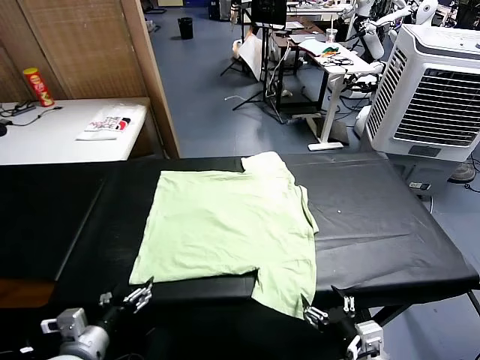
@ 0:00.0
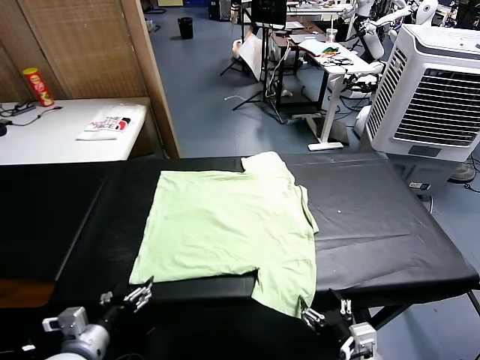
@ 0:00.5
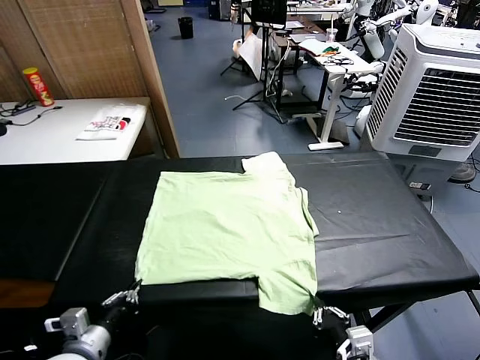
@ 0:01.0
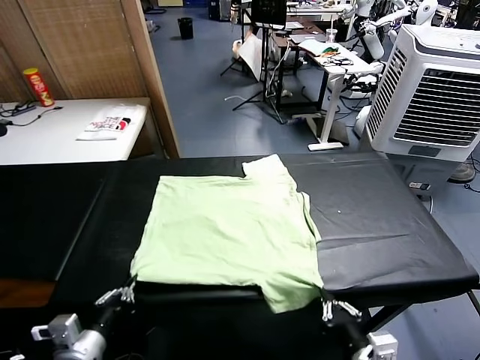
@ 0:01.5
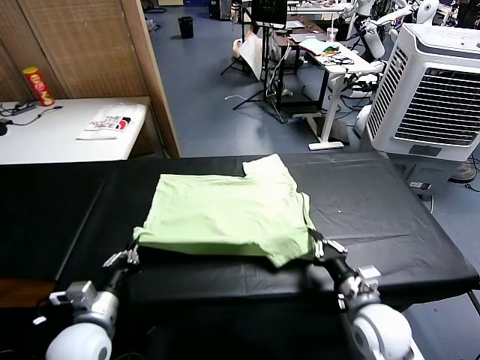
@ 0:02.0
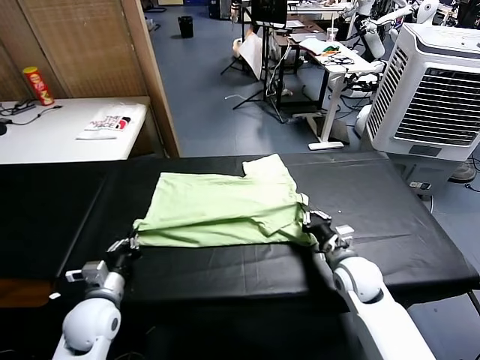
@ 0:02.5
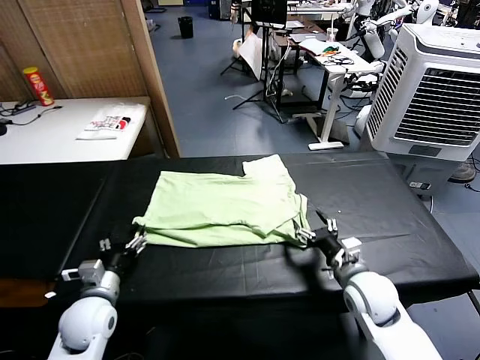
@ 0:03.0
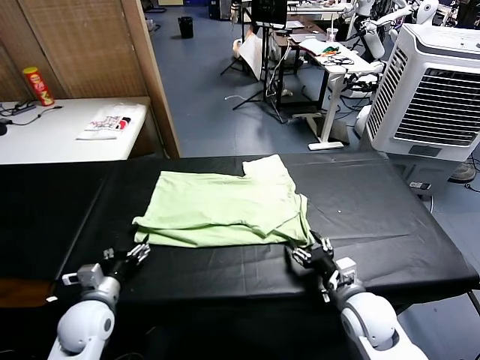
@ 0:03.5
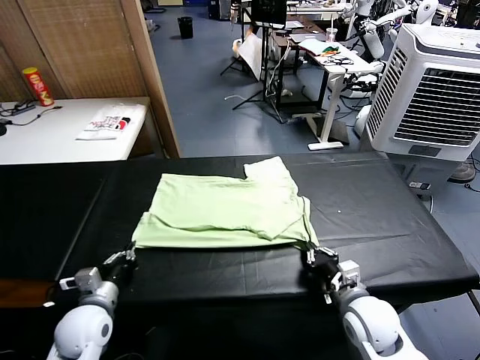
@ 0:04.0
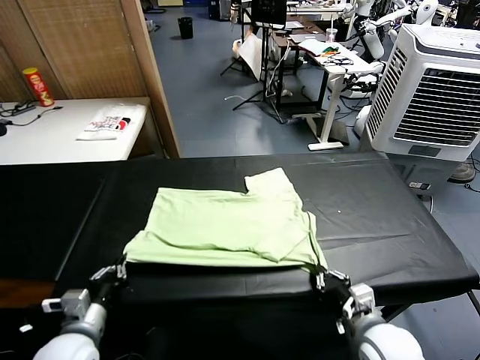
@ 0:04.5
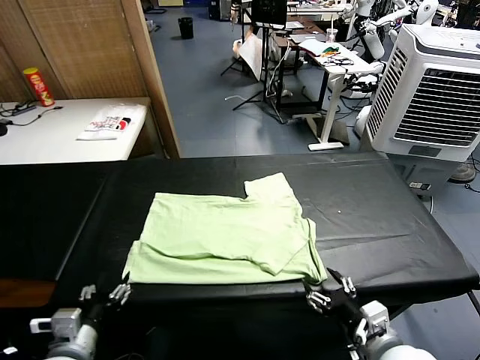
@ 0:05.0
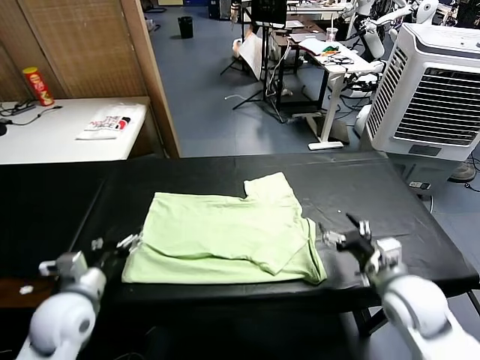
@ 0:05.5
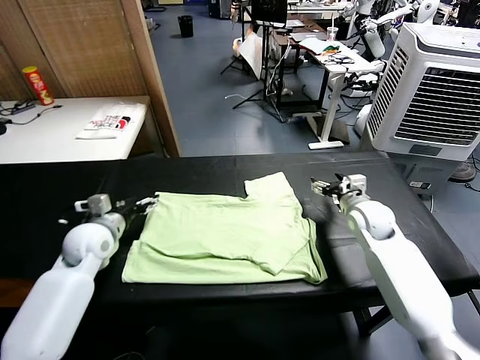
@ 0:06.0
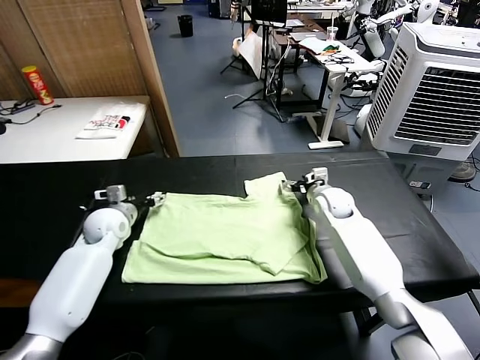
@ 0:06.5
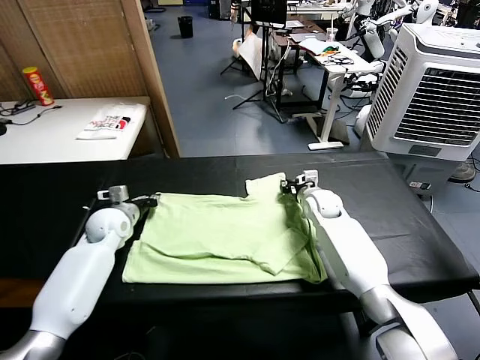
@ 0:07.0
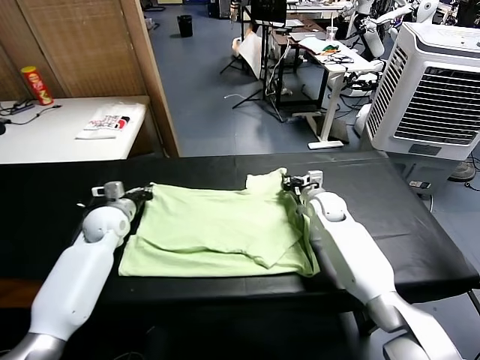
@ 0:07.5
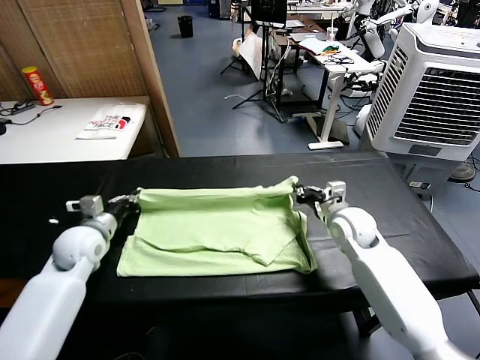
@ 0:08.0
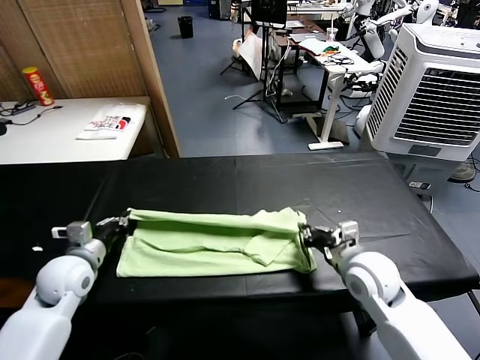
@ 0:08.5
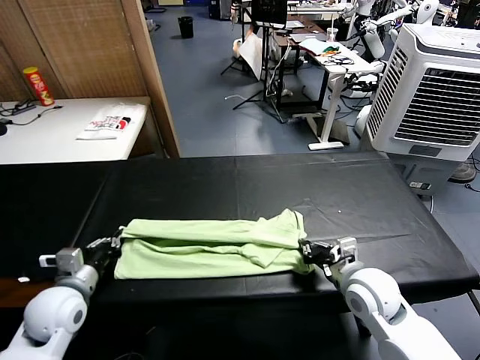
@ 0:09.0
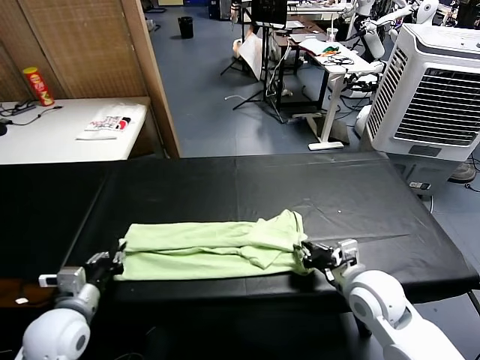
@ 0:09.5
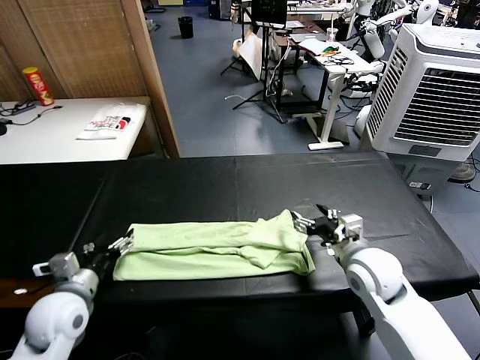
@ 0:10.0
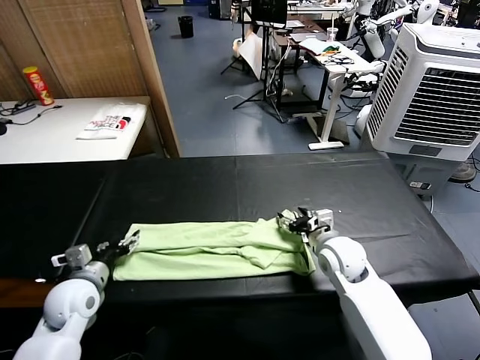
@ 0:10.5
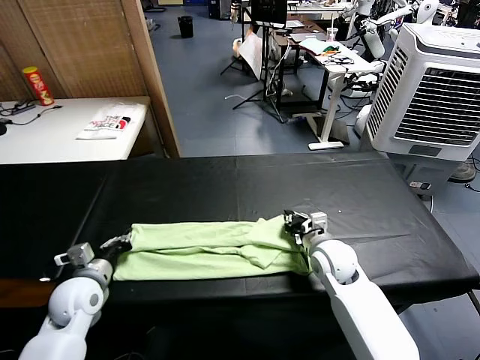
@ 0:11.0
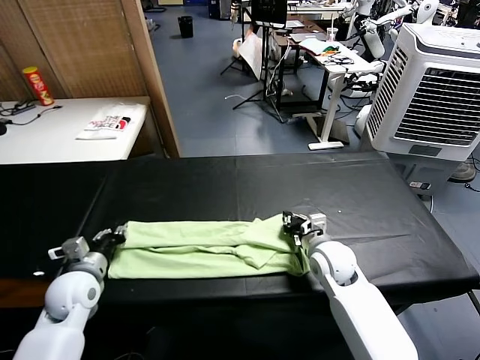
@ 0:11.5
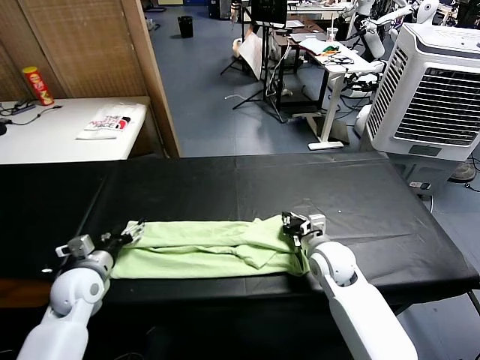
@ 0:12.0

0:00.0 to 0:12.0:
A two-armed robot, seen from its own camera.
Task of the whole recording: fold and organize the clothes.
Step, 0:00.0 to 0:01.0: use both grippers simultaneously to clamp the lower edge of the clothing fabric.
Step, 0:01.5 to 0:03.0: use both grippers to drag the lower edge of the fabric forward and fold it over the upper edge.
Step, 0:03.5 to 0:05.0: Drag the clothes downward with both gripper.
Step, 0:05.5 to 0:06.5: use both grippers simultaneously to clamp the upper edge of the clothing fabric.
Step, 0:07.0 to 0:09.5: use both grippers to drag the upper edge of the fabric backward and fold it over the lower edge.
0:02.0 to 0:04.0: The left gripper opens and closes again. Meanwhile the right gripper heads backward, covering approximately 10 cm, and opens and closes again.
0:04.0 to 0:06.0: The two grippers go roughly 25 cm forward. The left gripper opens its fingers. The right gripper opens its fingers.
0:06.0 to 0:08.0: The left gripper heads backward, covering about 5 cm, and closes its fingers; the right gripper moves backward, about 15 cm, and closes up.
0:08.0 to 0:10.0: The right gripper goes backward and returns, about 10 cm each way, and opens; the left gripper moves backward, about 10 cm, and opens its fingers.
0:10.0 to 0:12.0: The left gripper shifts roughly 5 cm forward, and closes and opens again; the right gripper travels downward by roughly 5 cm, and closes.

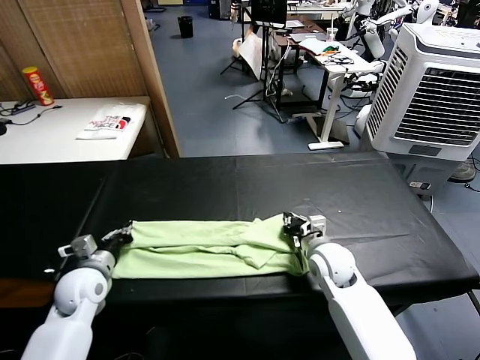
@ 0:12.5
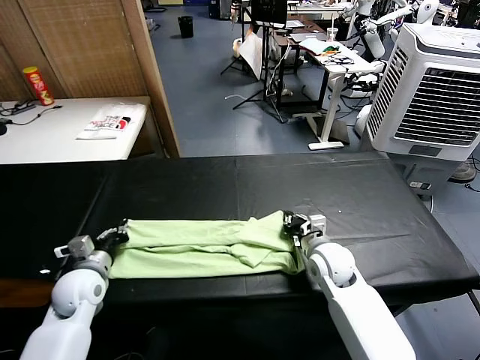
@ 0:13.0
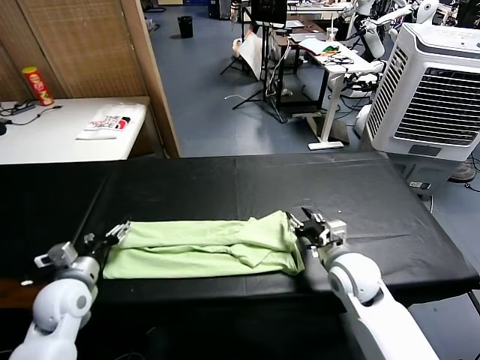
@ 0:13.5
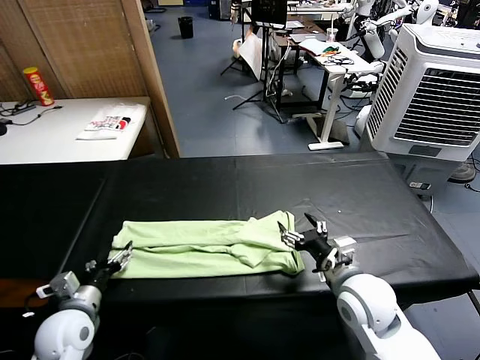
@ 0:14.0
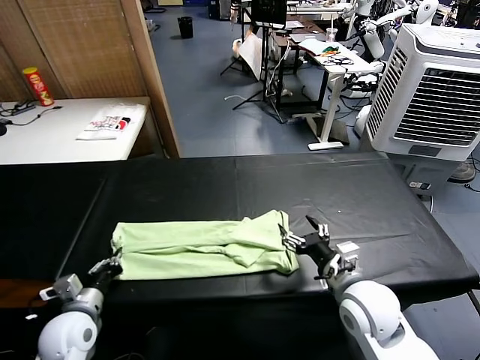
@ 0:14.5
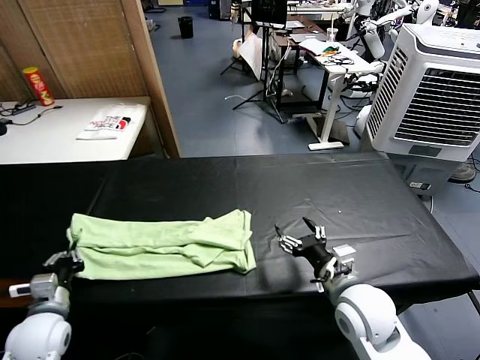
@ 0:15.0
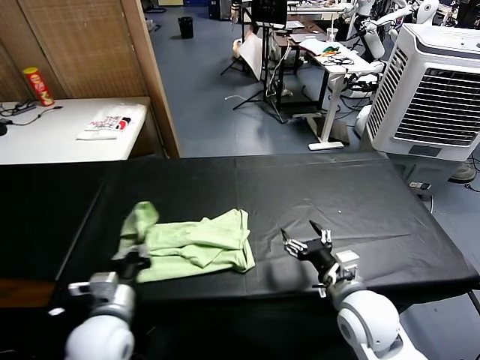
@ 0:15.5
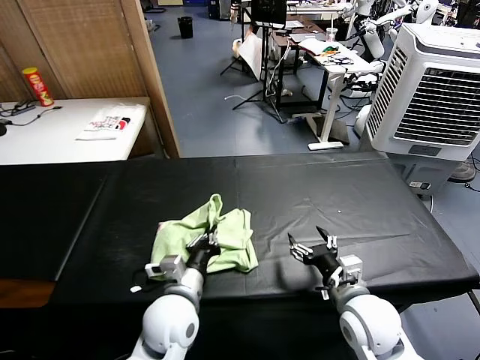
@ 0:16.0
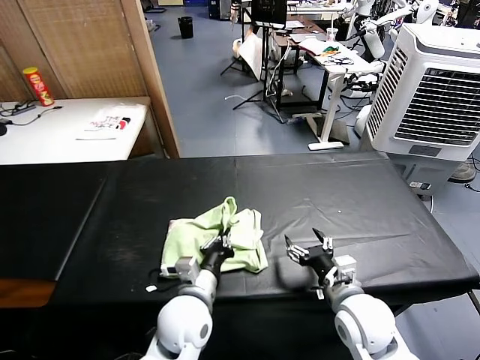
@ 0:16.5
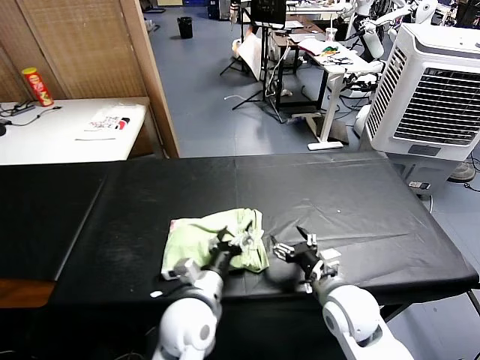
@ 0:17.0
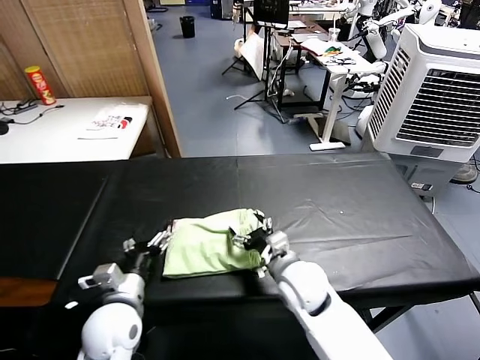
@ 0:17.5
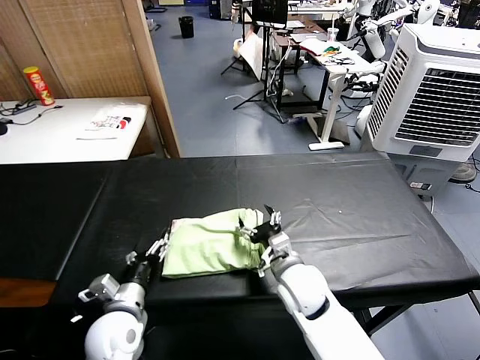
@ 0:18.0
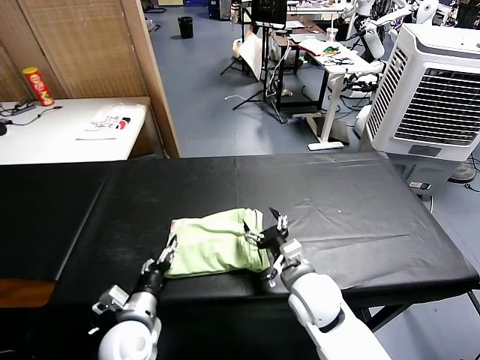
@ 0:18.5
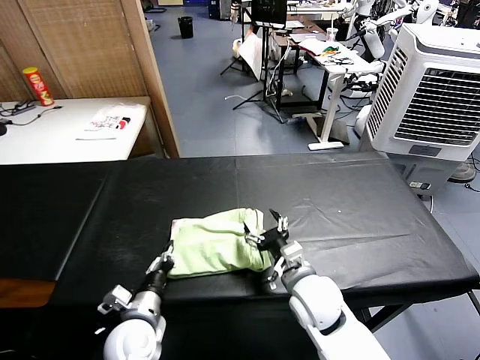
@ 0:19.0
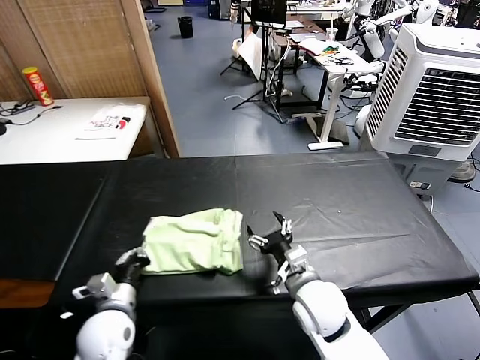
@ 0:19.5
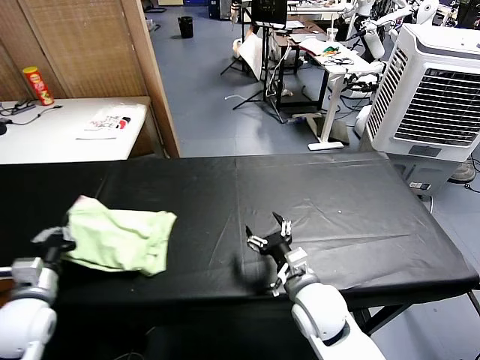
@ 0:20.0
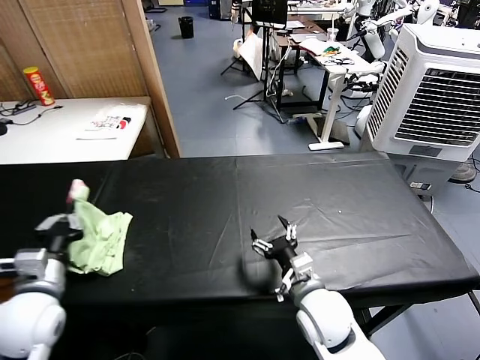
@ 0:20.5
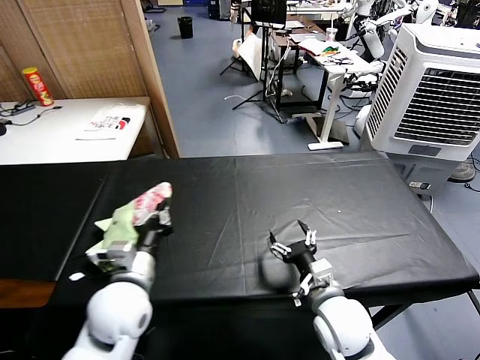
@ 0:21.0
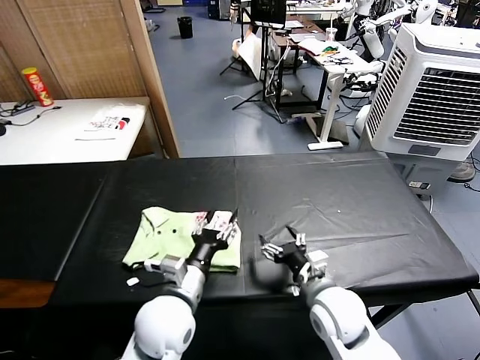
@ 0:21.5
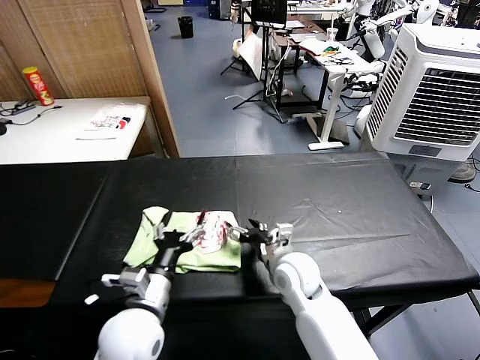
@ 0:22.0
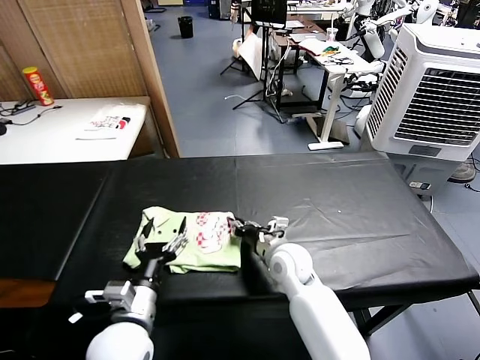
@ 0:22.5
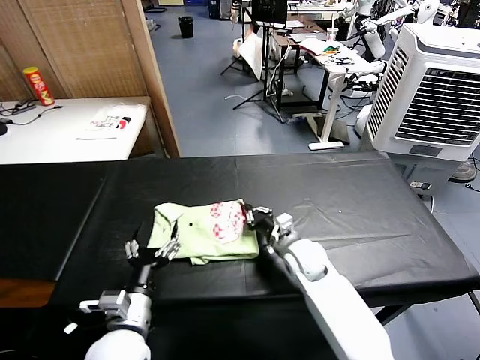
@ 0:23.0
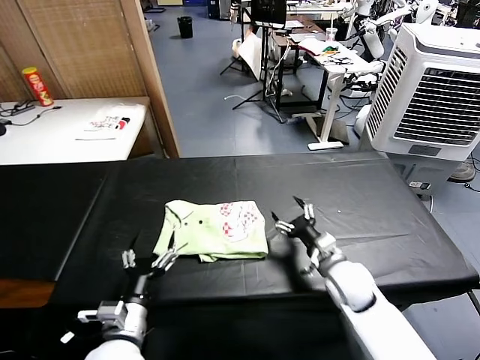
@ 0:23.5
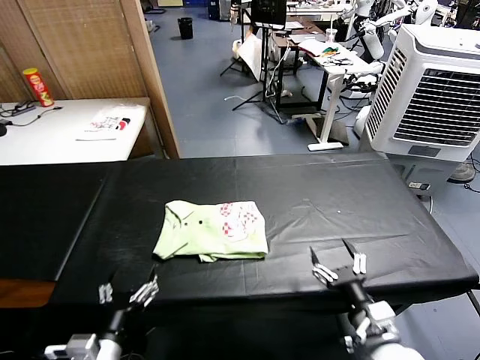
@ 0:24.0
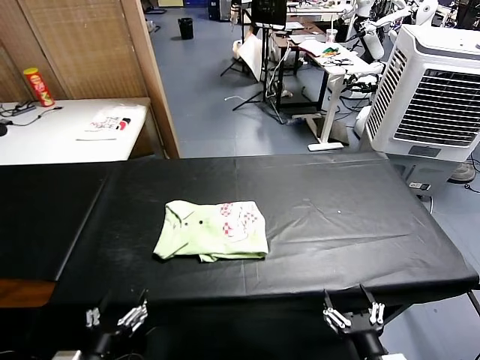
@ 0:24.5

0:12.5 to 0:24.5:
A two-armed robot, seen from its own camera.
Task of the whole recording: fold and organize the clothes.
Step, 0:14.5 to 0:16.5: use the left gripper to drag the left edge of the fabric to the left and folds it over the right edge.
Step, 0:17.5 to 0:21.0: Flip the folded clothes over with left gripper.
Step, 0:21.5 to 0:23.0: Drag the clothes to the center of the table.
0:12.5 to 0:14.5: The left gripper moves backward, roughly 10 cm, and opens, then closes again. Meanwhile the right gripper moves backward and upward, approximately 15 cm, and opens.
0:14.5 to 0:16.5: The left gripper goes about 25 cm to the right.
0:16.5 to 0:18.5: Both grippers move to the left, about 10 cm. The left gripper opens its fingers.
0:18.5 to 0:20.5: The left gripper is displaced upward and to the left by roughly 20 cm, and closes.
0:20.5 to 0:22.5: The right gripper heads forward, covering about 10 cm, and closes up; the left gripper shifts about 15 cm to the right, and opens.
0:22.5 to 0:24.5: The right gripper goes roughly 35 cm backward and to the right, and opens up. The left gripper travels backward and to the left by roughly 15 cm.

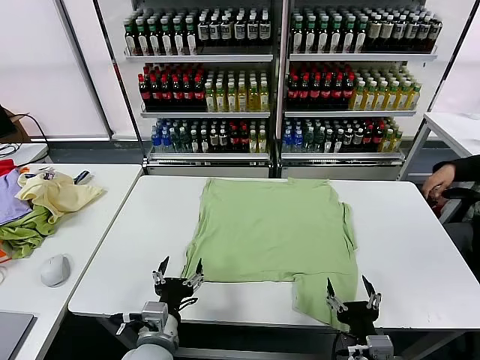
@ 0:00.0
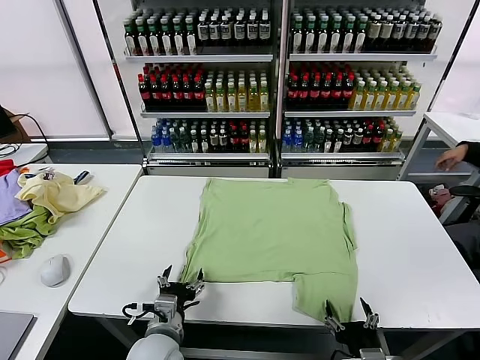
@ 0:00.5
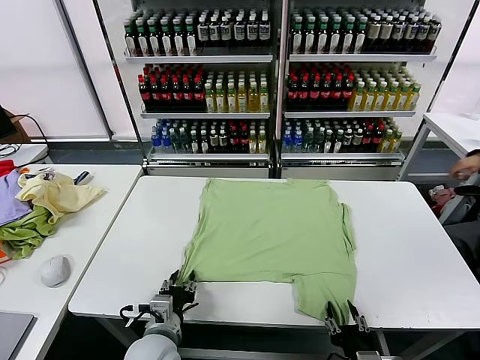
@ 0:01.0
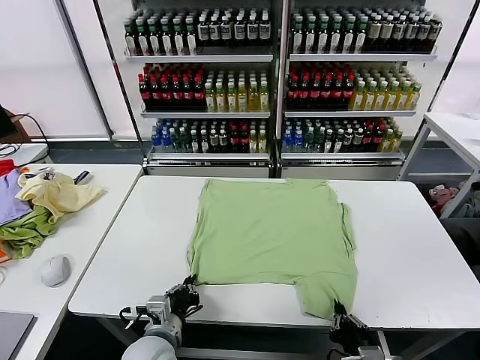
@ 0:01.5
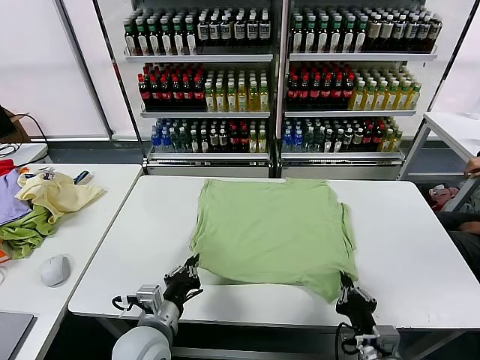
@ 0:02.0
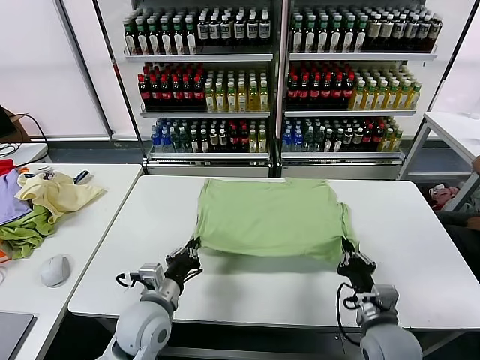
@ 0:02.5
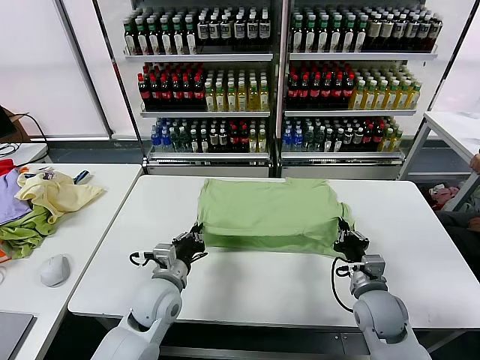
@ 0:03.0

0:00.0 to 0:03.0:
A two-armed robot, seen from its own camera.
Task of the whole recording: fold and organize the clothes.
Step, 0:00.0 to 0:01.5: use both grippers simultaneously to clamp the lower edge of the clothing fabric.
0:01.5 to 0:03.0: The left gripper is displaced forward by about 10 cm; the right gripper is displaced forward by approximately 20 cm.
